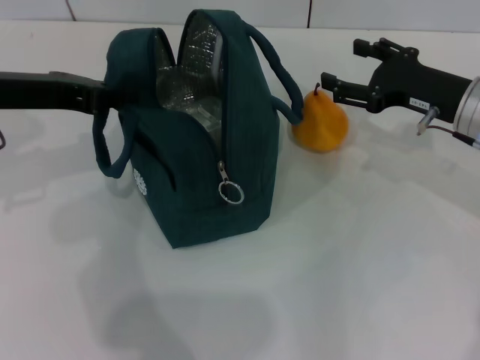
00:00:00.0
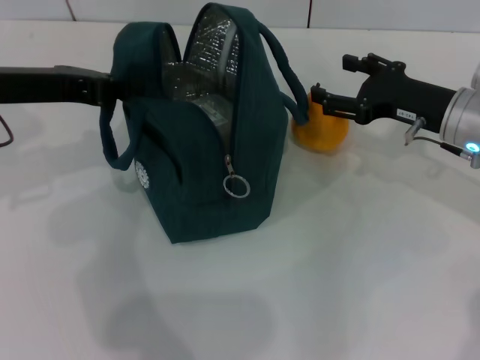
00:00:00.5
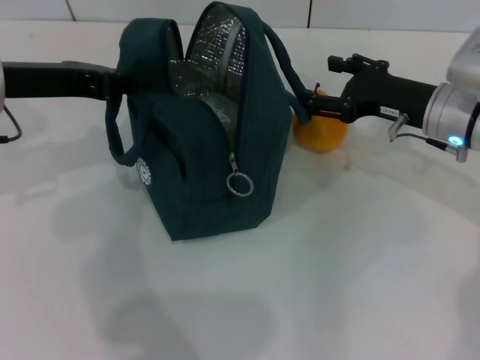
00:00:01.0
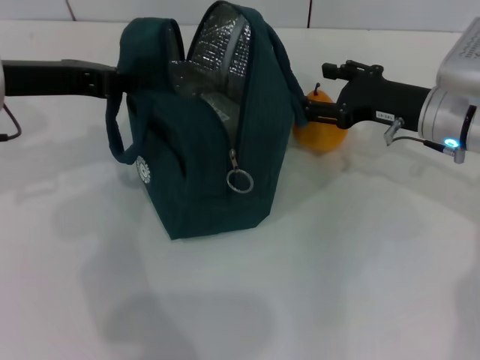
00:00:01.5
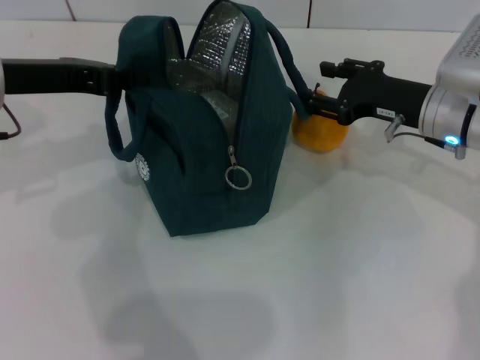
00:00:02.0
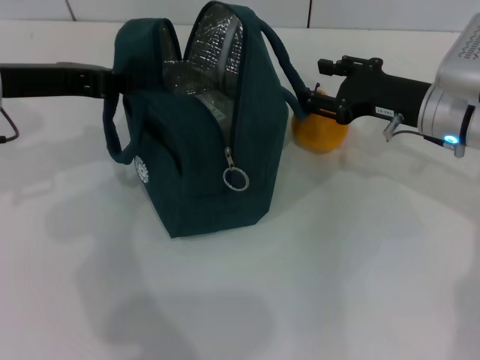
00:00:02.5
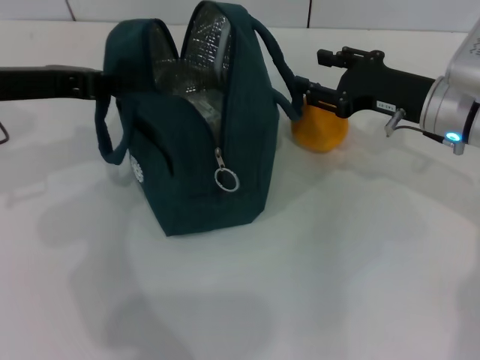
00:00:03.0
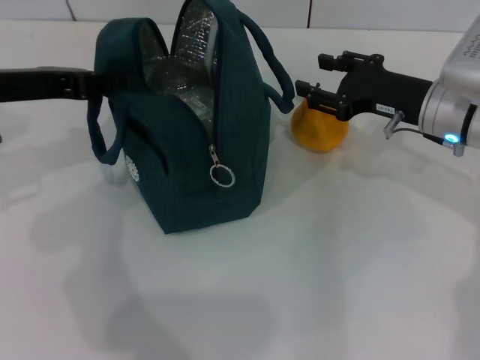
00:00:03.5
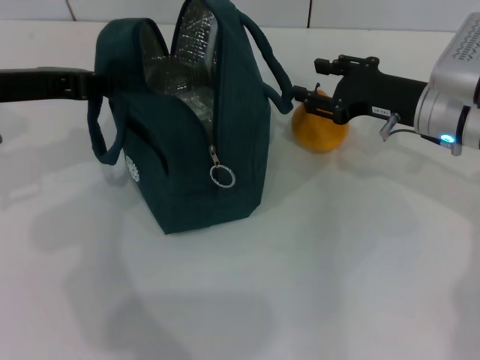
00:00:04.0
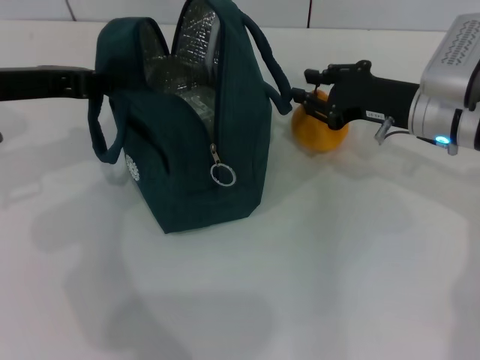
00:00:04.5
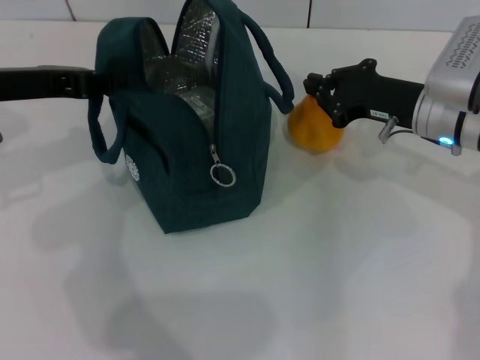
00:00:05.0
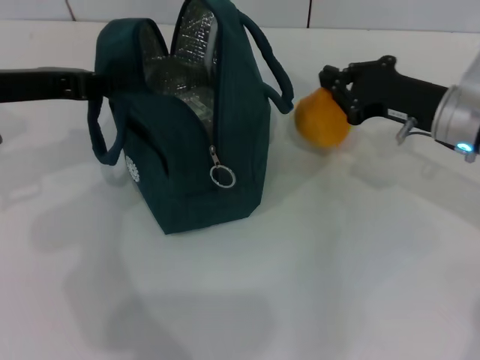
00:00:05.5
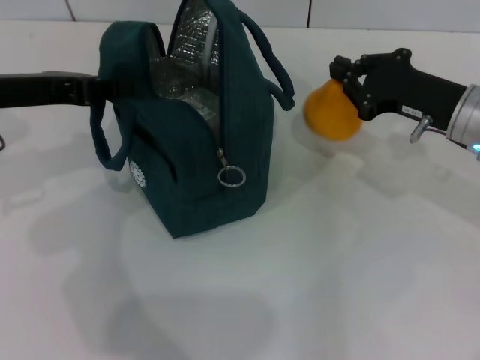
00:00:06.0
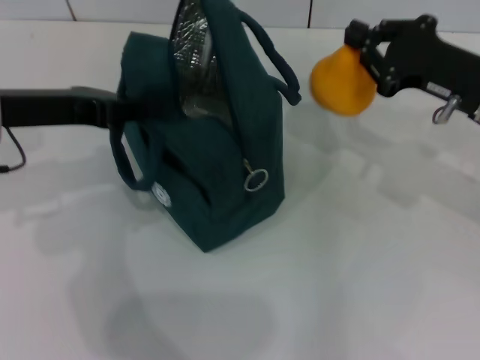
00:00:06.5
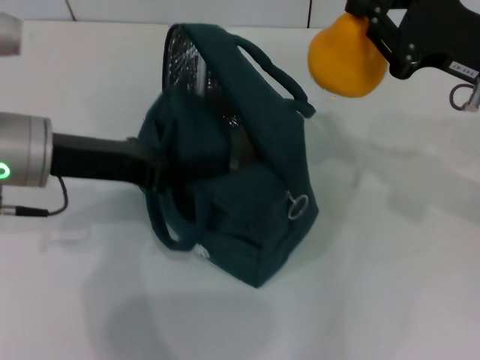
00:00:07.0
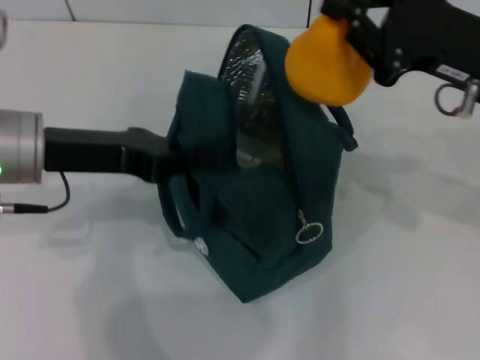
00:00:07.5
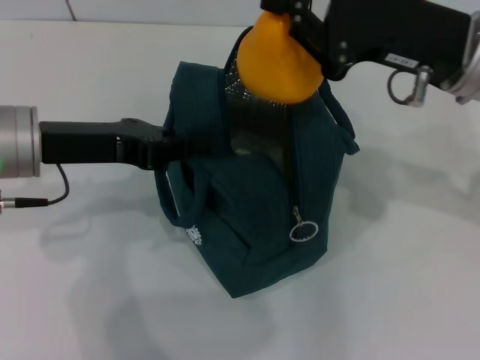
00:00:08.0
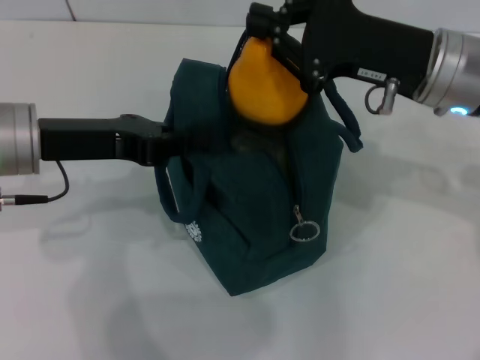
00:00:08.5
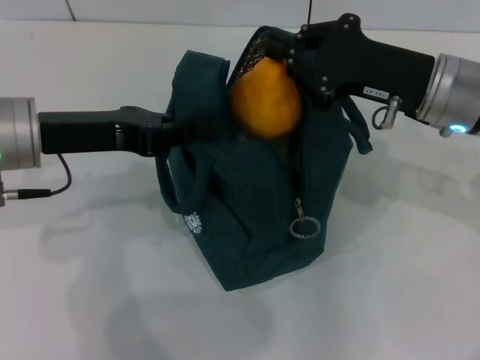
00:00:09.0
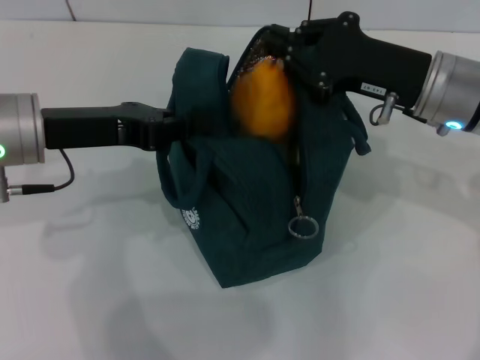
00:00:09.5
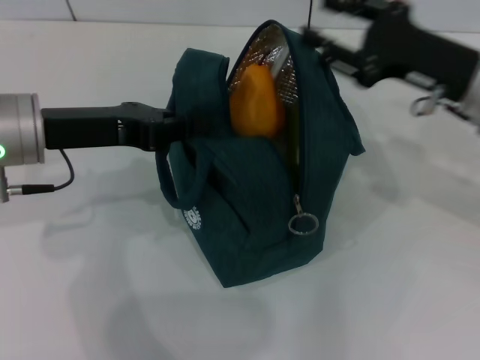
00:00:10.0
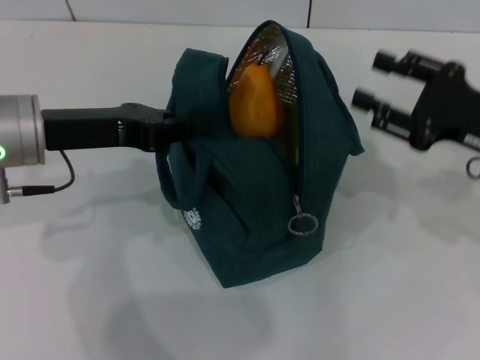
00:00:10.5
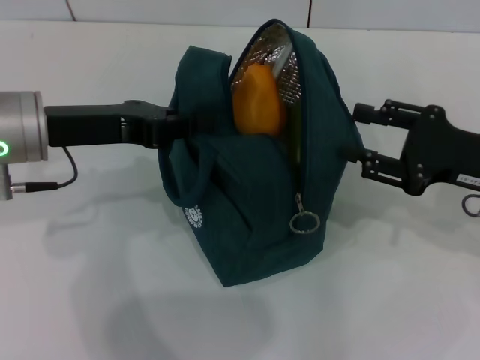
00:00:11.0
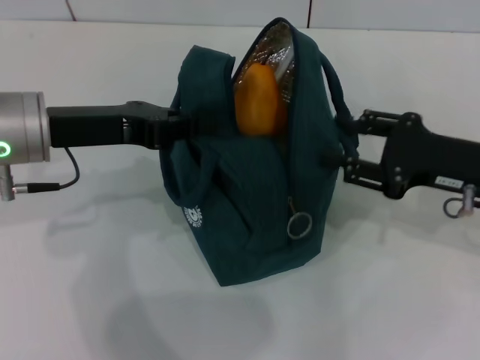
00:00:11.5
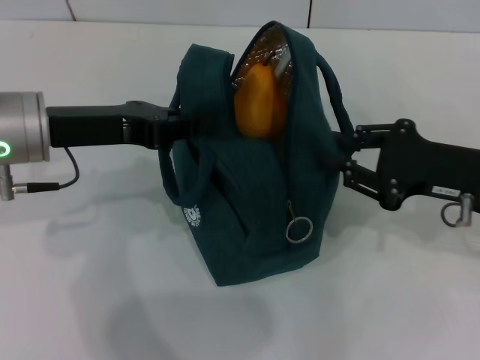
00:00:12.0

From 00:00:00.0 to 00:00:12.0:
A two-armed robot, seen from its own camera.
Step, from 00:00:00.0 to 00:00:04.5: Grab the pear with your right hand.
Step, from 00:00:05.5 to 00:00:09.5: Secure the lunch bag with your left hand.
From 00:00:00.0 to 00:00:04.0: The grippers stay close to where they were, moving slightly.
From 00:00:04.0 to 00:00:06.0: The right gripper closes its fingers.
From 00:00:06.0 to 00:00:08.0: The left gripper shifts by about 5 cm. The right gripper travels upward by approximately 10 cm.
From 00:00:08.0 to 00:00:10.0: The right gripper is displaced downward by about 5 cm, and opens.
From 00:00:10.0 to 00:00:12.0: The right gripper moves backward, approximately 5 cm.

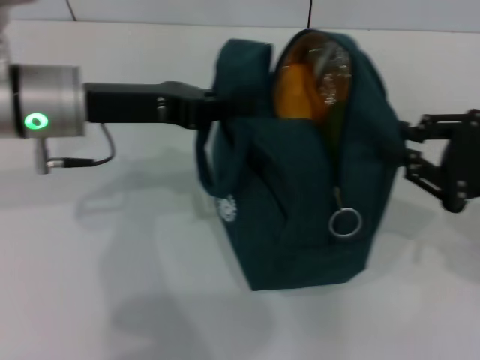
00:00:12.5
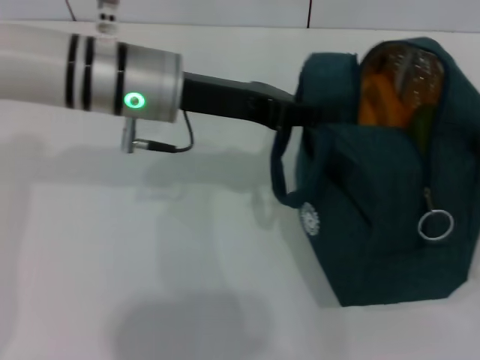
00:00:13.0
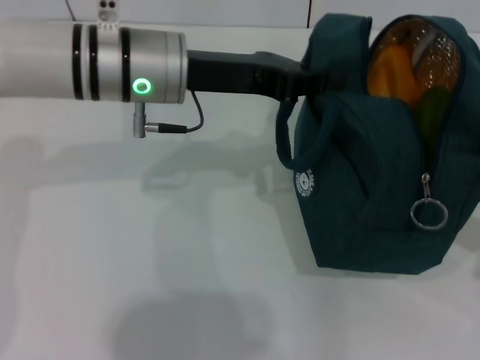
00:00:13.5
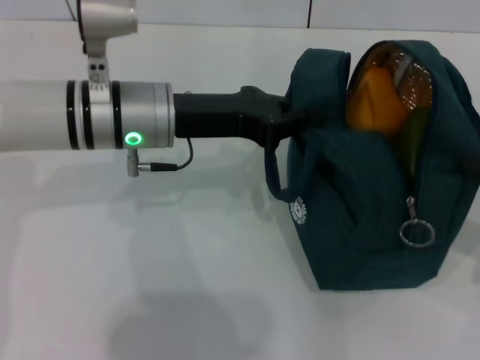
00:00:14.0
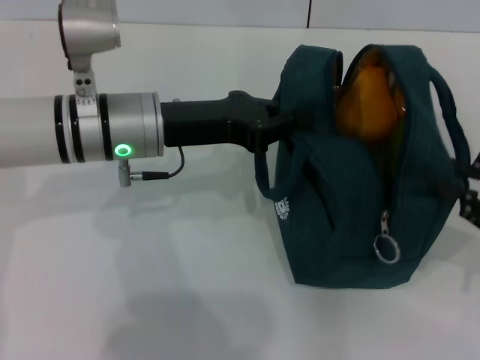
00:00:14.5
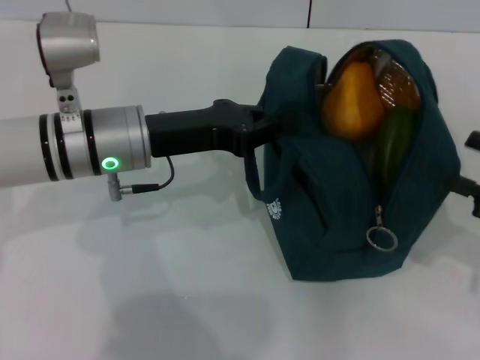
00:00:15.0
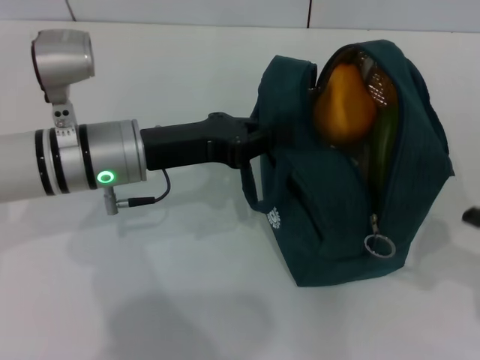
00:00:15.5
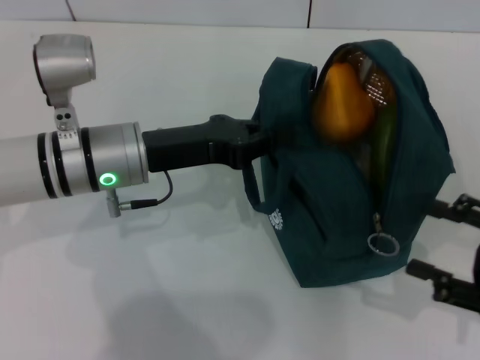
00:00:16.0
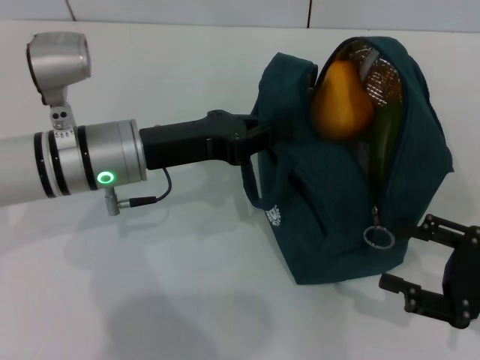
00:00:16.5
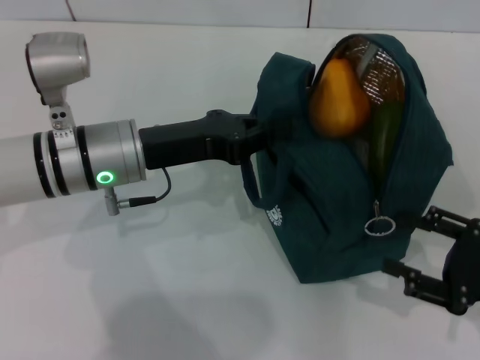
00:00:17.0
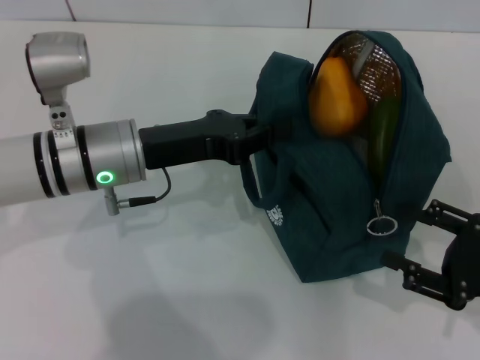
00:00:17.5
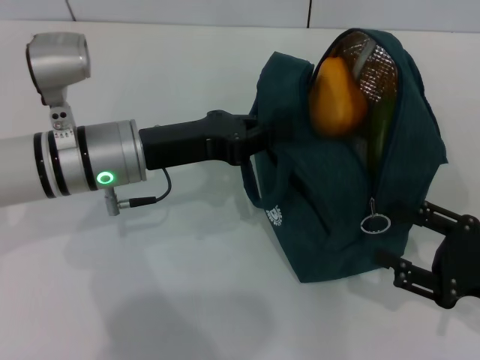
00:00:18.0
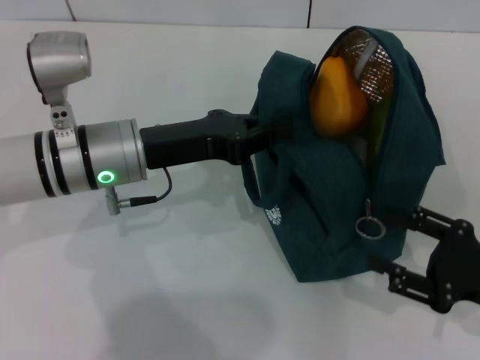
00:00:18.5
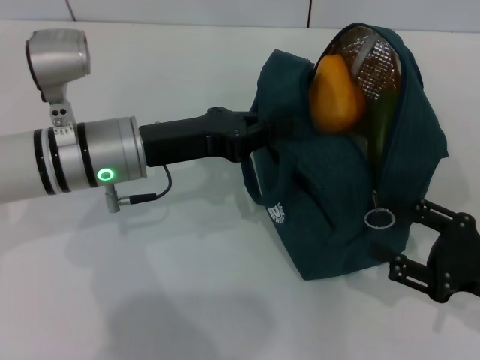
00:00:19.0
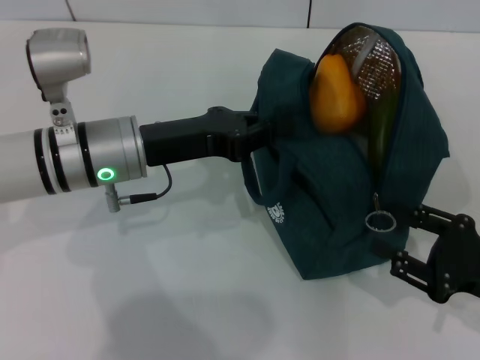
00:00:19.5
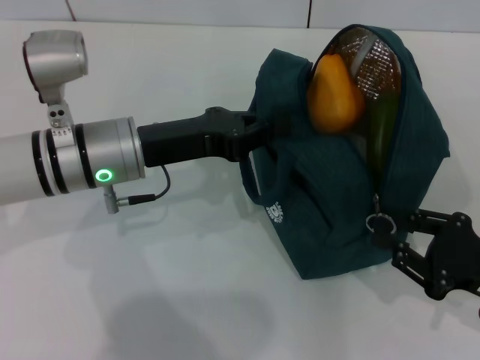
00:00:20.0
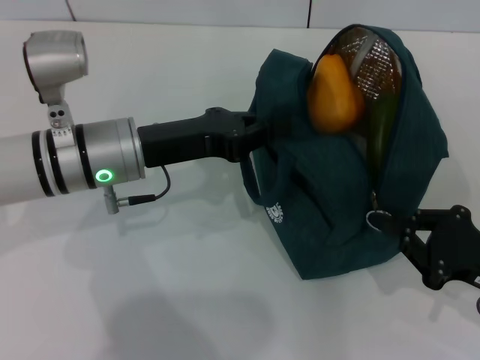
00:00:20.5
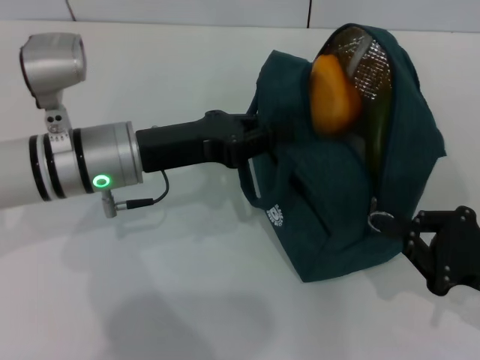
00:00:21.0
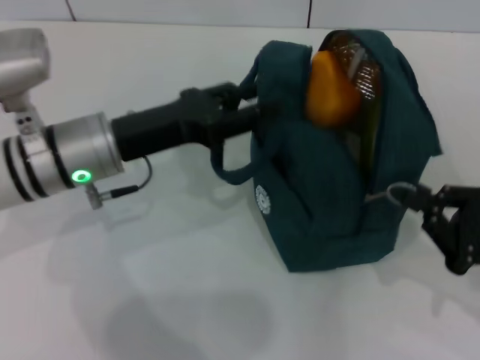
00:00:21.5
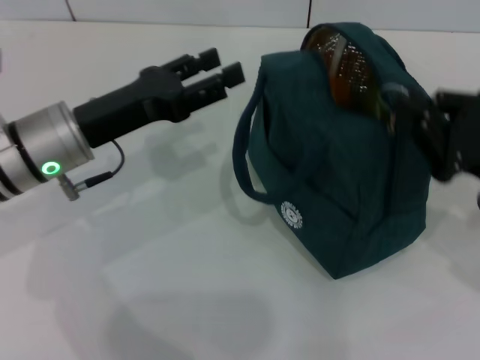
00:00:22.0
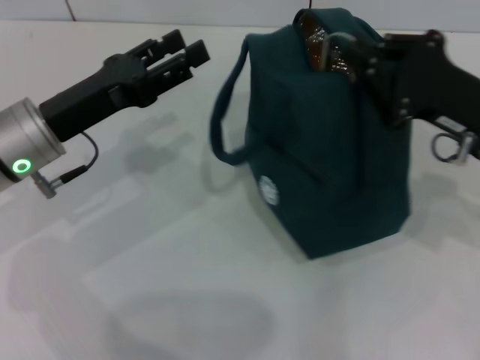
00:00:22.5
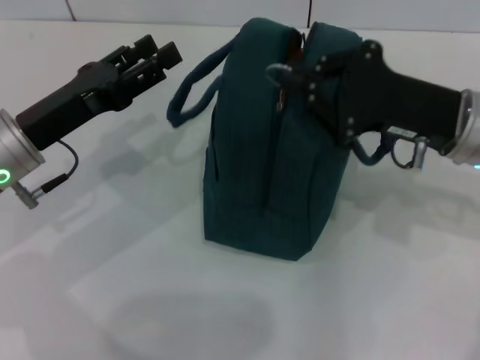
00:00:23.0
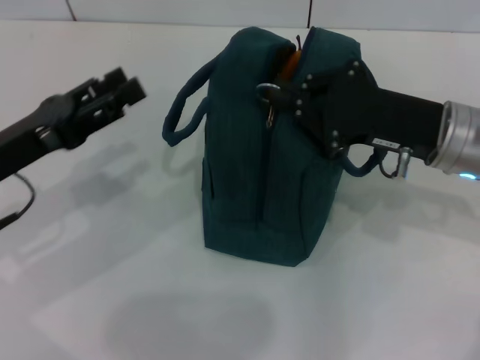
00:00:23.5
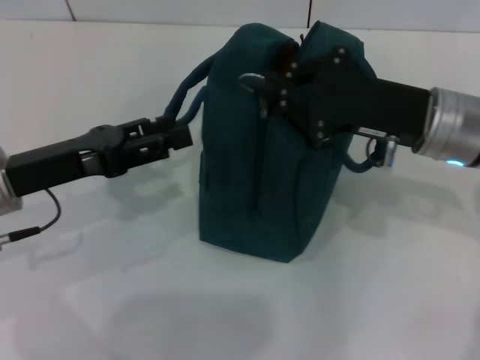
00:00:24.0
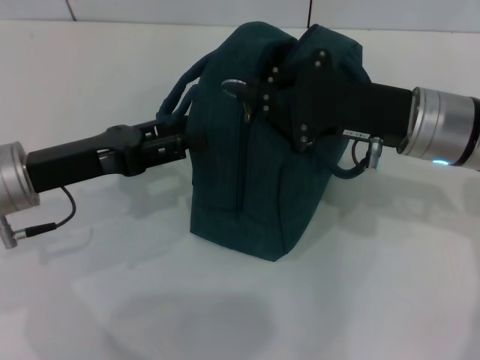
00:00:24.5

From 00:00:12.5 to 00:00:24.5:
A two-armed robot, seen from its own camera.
Step, from 00:00:12.5 to 00:00:15.0: Hold the lunch bag with your right hand.
Step, from 00:00:15.5 to 00:00:21.5: Hold the lunch bag with your left hand.
From 00:00:12.5 to 00:00:14.5: The right gripper shifts by approximately 5 cm; the left gripper moves roughly 5 cm.
From 00:00:14.5 to 00:00:16.5: The right gripper travels downward by approximately 5 cm, and opens.
From 00:00:16.5 to 00:00:18.5: The grippers make only small movements.
From 00:00:18.5 to 00:00:20.5: The right gripper closes up.
From 00:00:20.5 to 00:00:22.5: The left gripper is displaced to the left by roughly 5 cm, and opens its fingers, while the right gripper travels forward, upward and to the left by approximately 15 cm.
From 00:00:22.5 to 00:00:24.5: The right gripper is displaced to the left by some 5 cm.

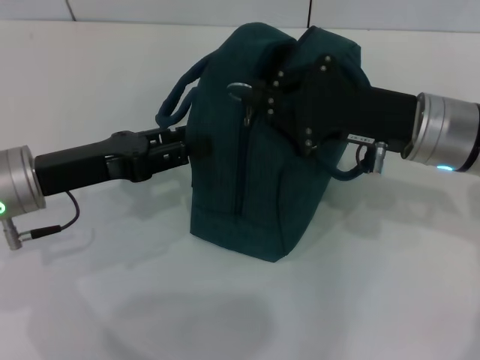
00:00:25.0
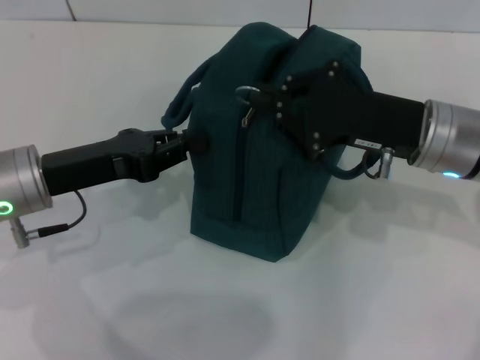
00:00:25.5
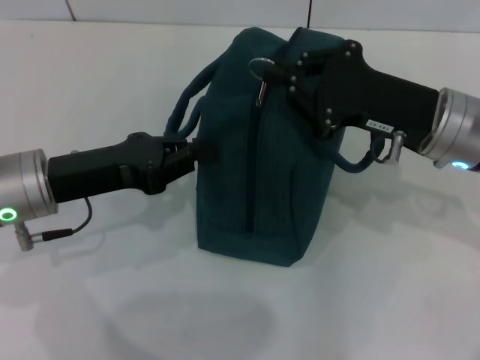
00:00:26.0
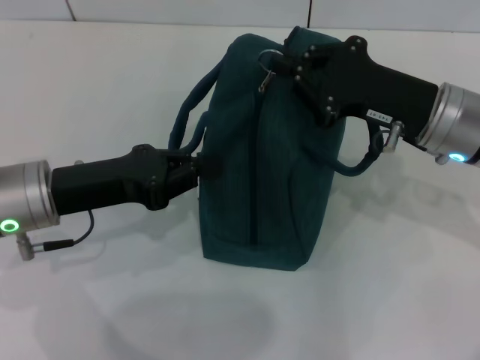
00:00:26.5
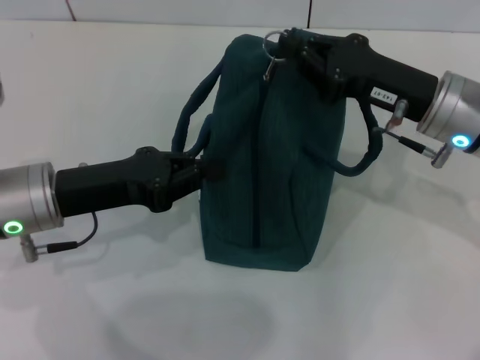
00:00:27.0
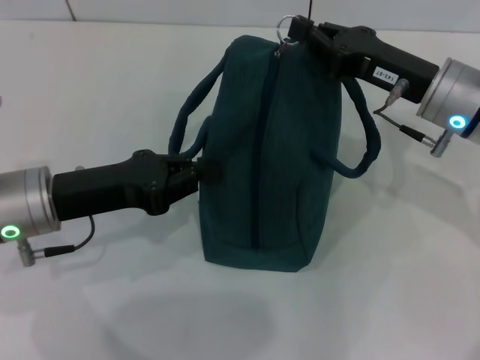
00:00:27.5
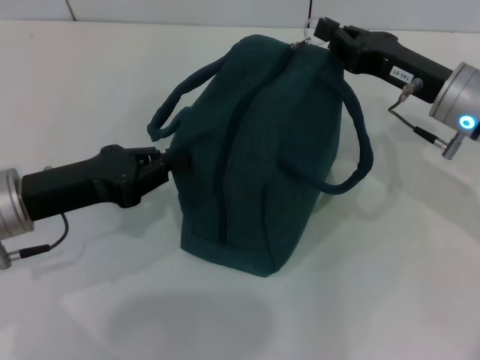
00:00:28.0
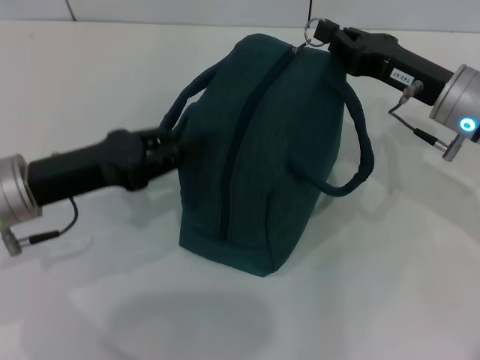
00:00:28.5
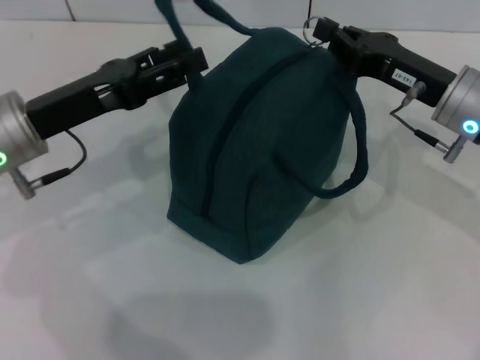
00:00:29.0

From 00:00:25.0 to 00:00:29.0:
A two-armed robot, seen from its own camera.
From 00:00:25.0 to 00:00:27.0: The left gripper closes.
From 00:00:27.0 to 00:00:29.0: The left gripper opens.
